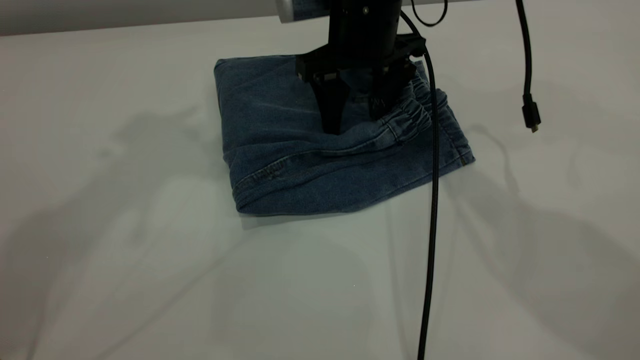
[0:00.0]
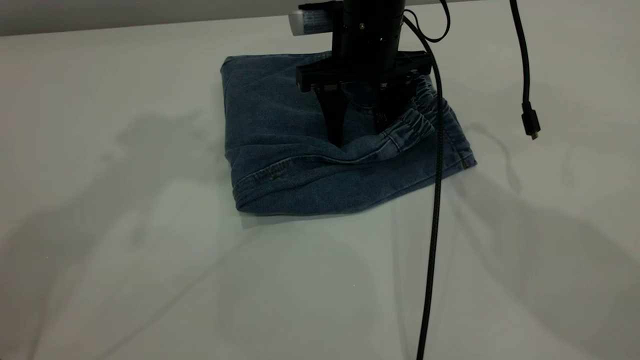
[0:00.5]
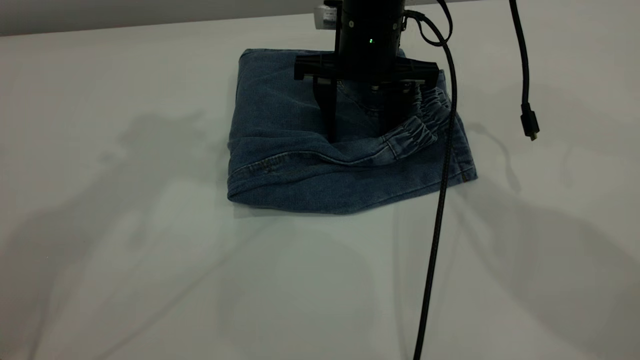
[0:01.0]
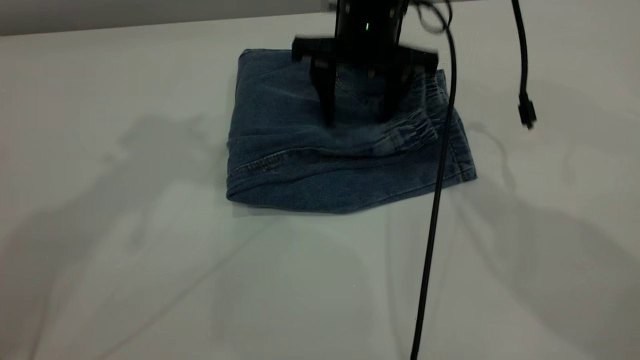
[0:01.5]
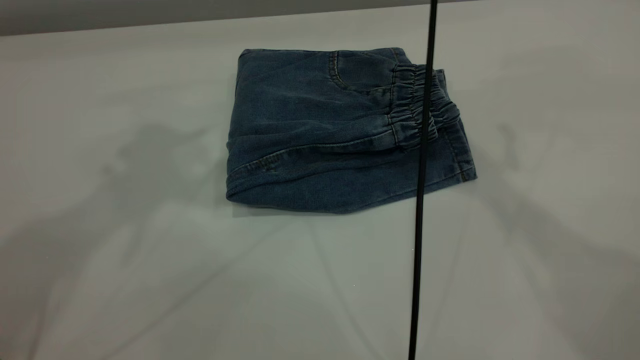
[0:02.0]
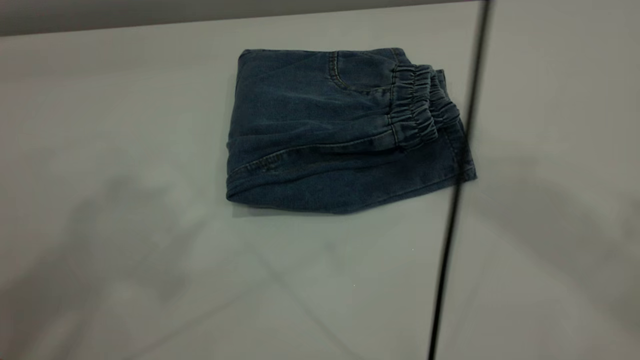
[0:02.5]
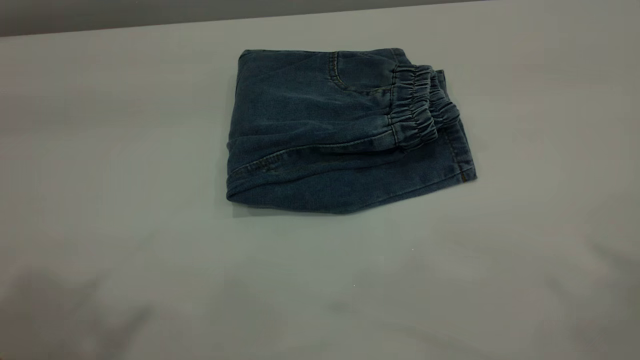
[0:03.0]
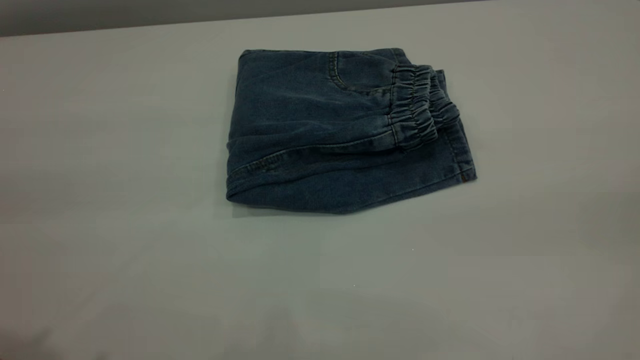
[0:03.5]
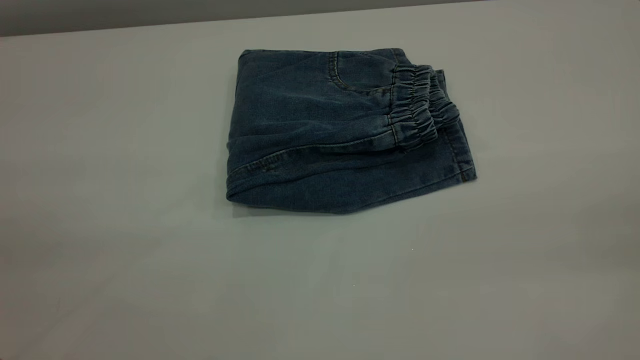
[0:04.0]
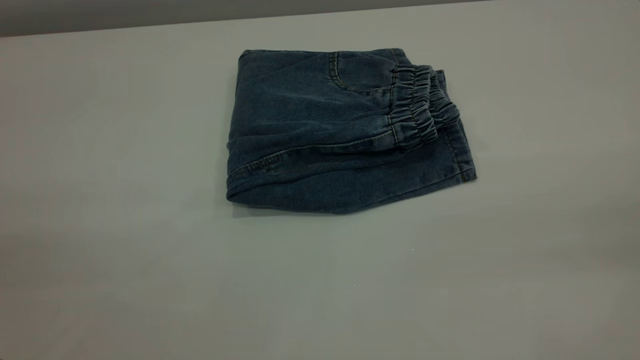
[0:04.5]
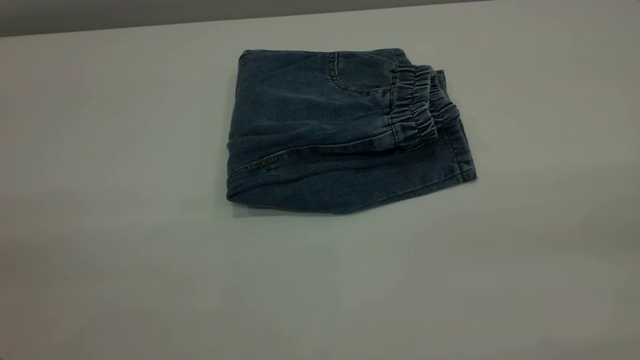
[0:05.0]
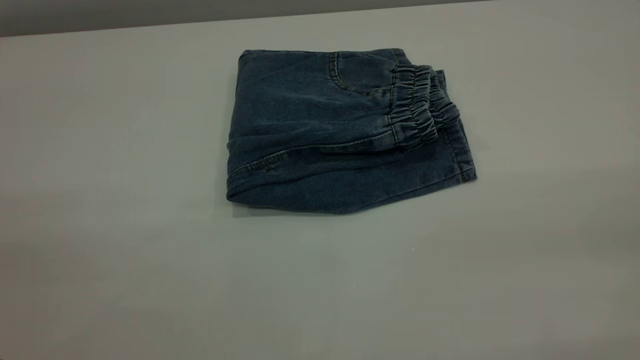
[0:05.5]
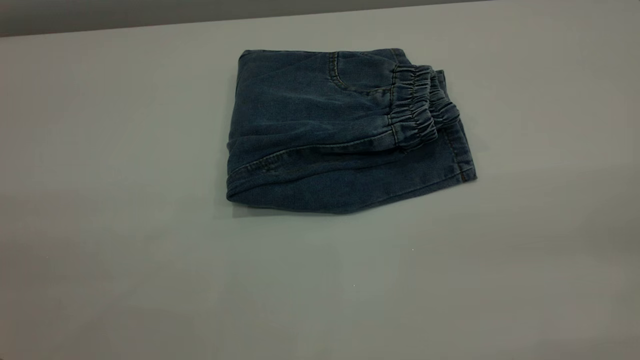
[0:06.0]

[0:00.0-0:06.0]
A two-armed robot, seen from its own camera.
0:00.0 to 0:02.0: The right gripper travels upward by approximately 20 cm.
0:02.0 to 0:04.0: The left gripper shifts roughly 25 cm backward. The right gripper heads backward and to the right, covering some 50 cm.

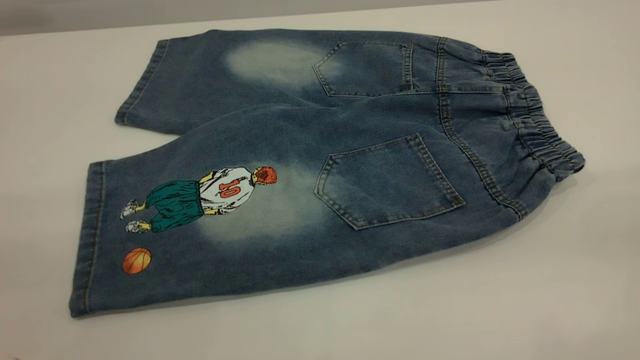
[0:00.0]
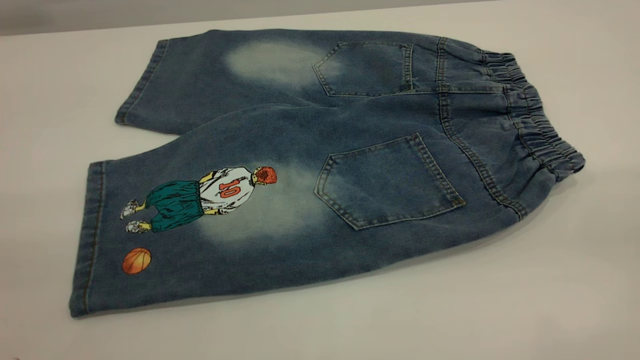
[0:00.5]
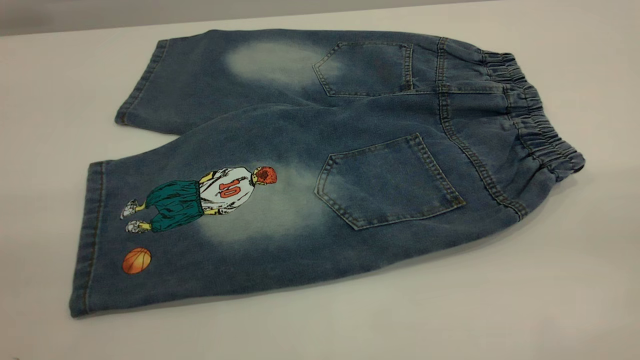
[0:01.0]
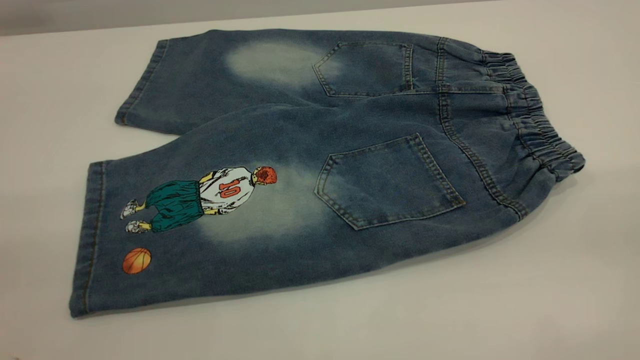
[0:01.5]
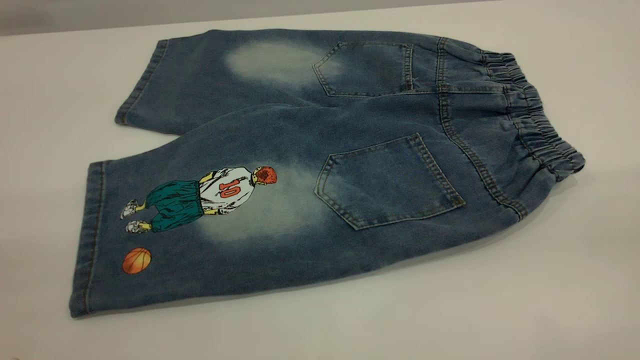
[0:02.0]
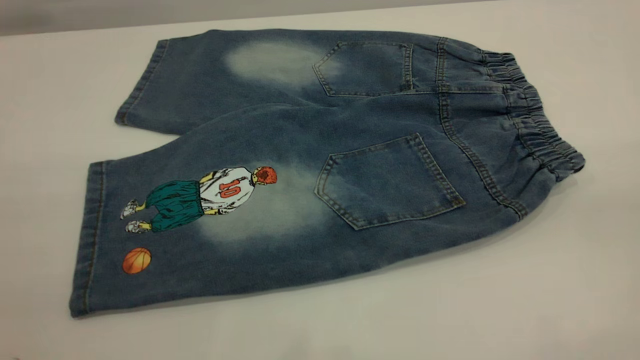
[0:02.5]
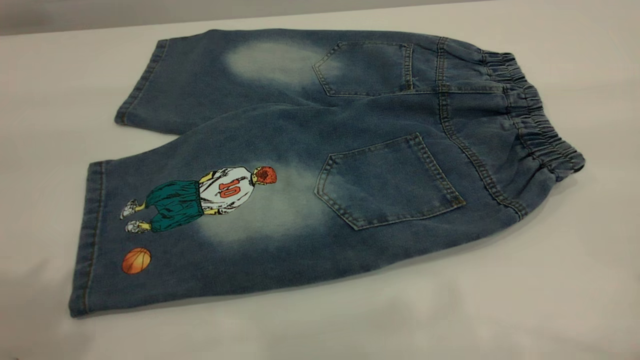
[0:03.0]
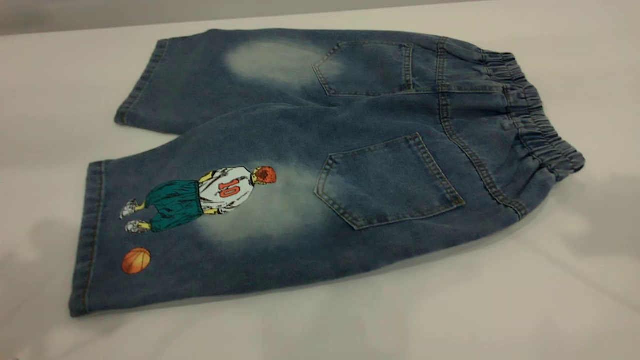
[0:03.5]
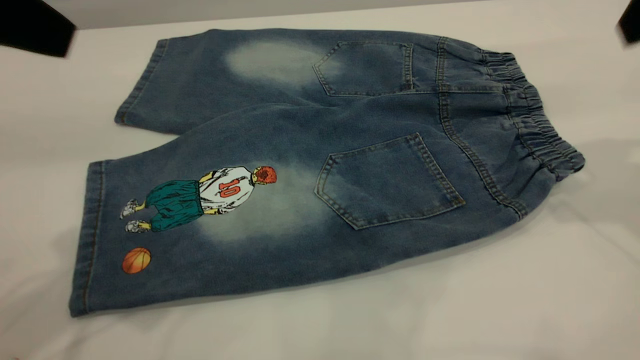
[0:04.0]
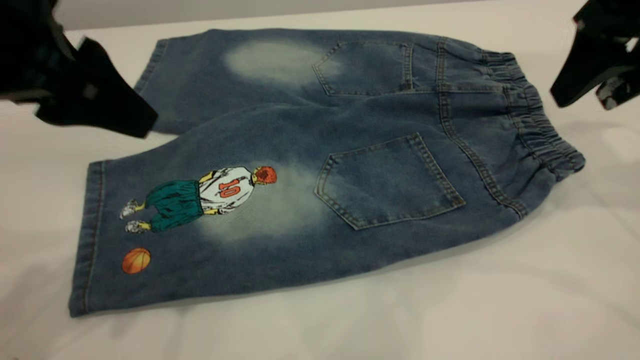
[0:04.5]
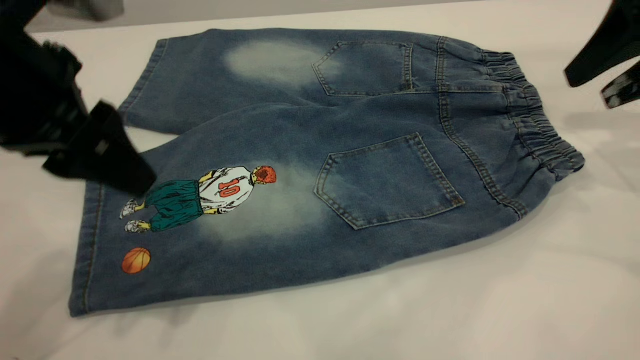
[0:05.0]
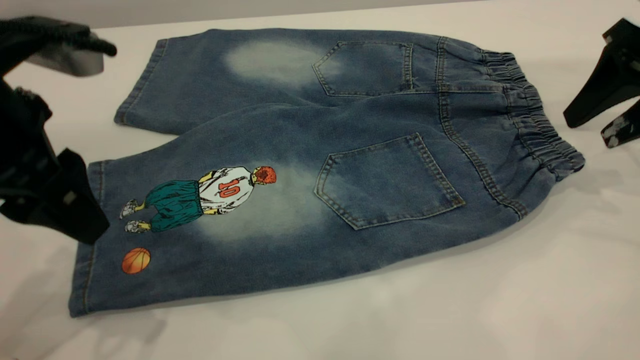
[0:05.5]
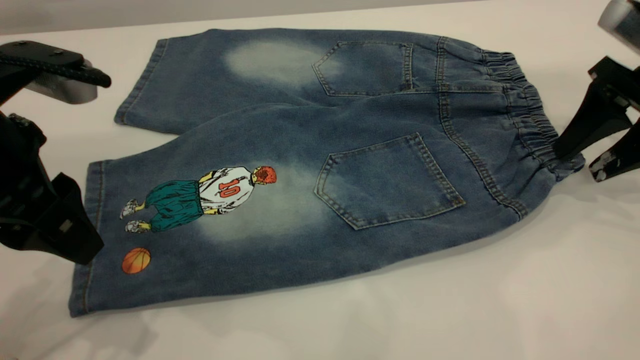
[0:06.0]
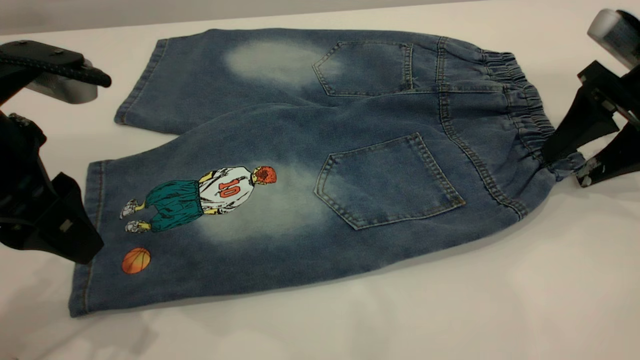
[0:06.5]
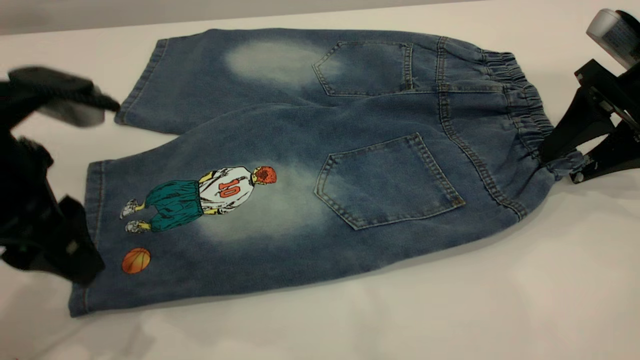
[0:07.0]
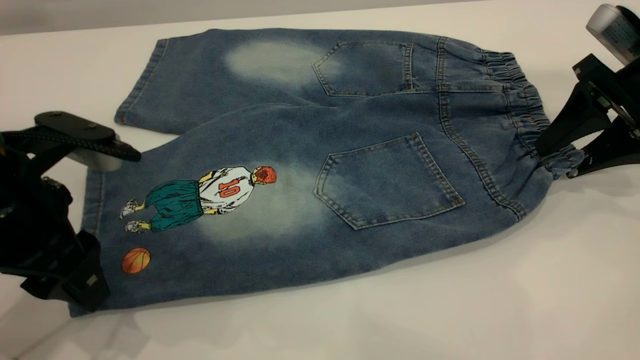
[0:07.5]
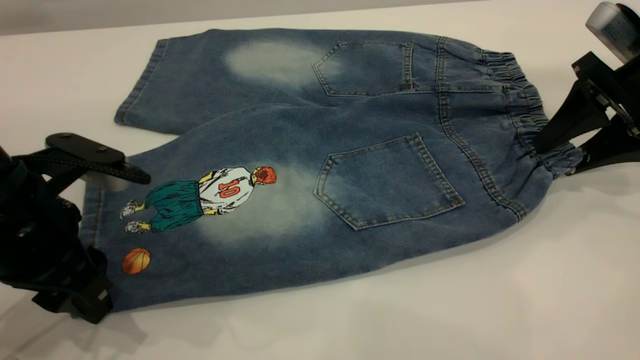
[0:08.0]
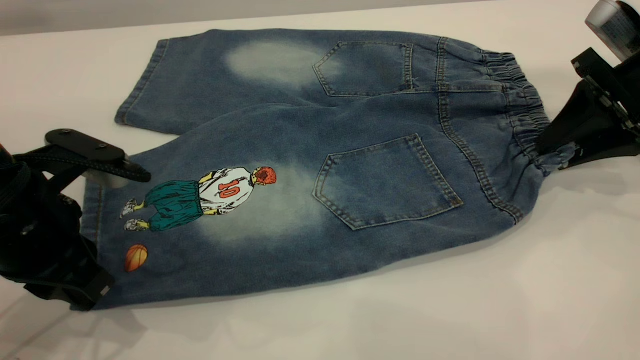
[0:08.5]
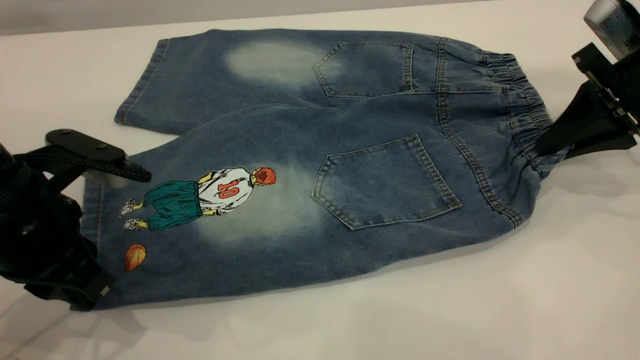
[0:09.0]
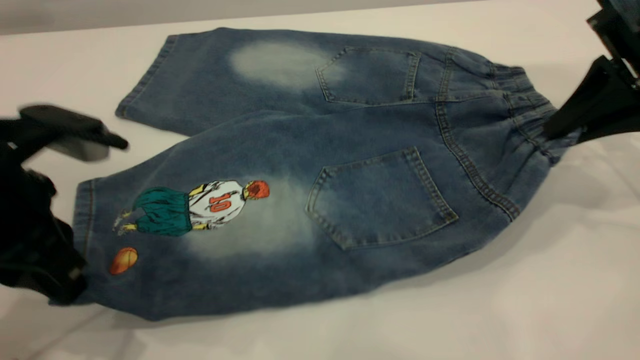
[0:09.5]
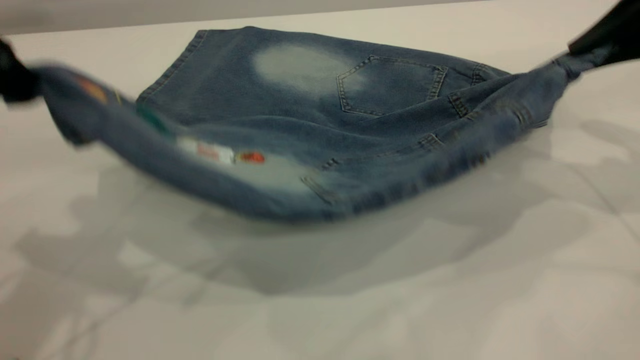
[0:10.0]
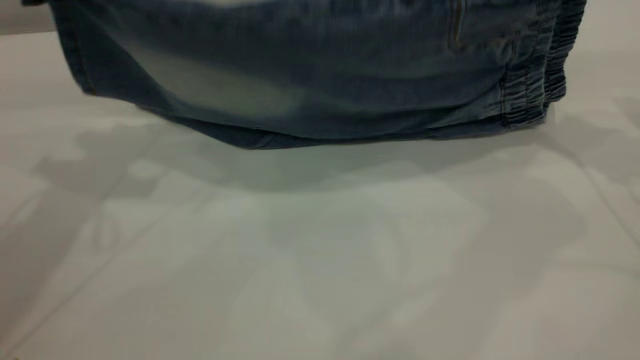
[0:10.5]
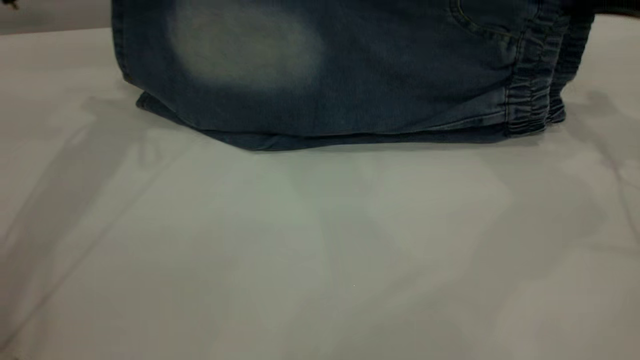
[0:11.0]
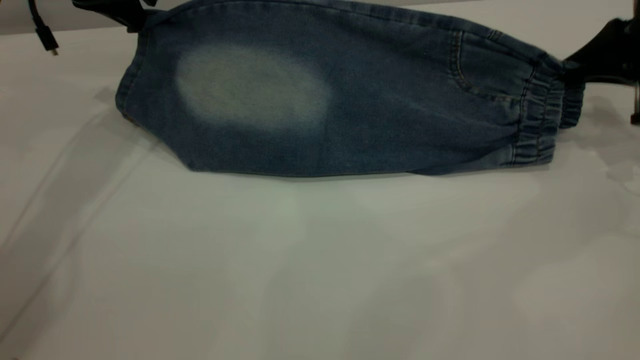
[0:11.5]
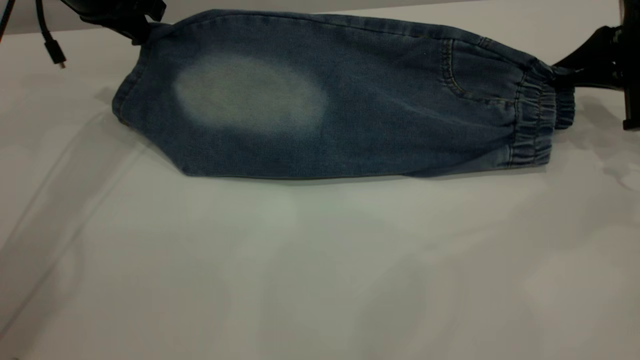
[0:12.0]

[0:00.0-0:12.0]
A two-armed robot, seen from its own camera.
0:00.0 to 0:02.0: Neither gripper changes place.
0:02.0 to 0:04.0: The left gripper is displaced forward by approximately 20 cm.
0:04.0 to 0:06.0: The left gripper travels downward by about 10 cm, while the right gripper shifts approximately 15 cm downward and to the right.
0:06.0 to 0:08.0: The left gripper goes some 10 cm downward.
0:08.0 to 0:10.0: The left gripper is displaced upward by roughly 15 cm, and closes; the right gripper goes roughly 10 cm upward, and closes up.
0:10.0 to 0:12.0: The left gripper shifts roughly 25 cm forward and downward. The right gripper goes about 10 cm downward and forward.

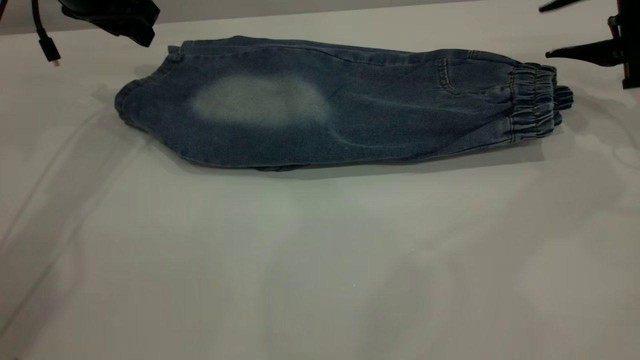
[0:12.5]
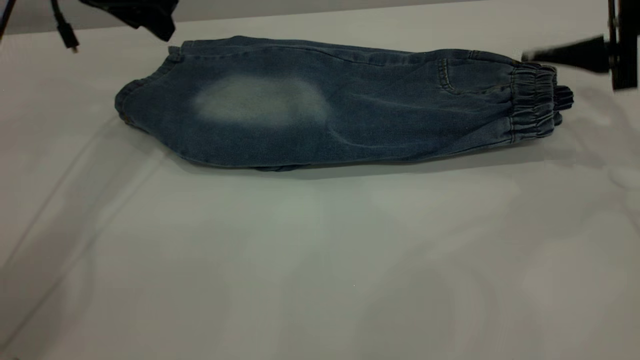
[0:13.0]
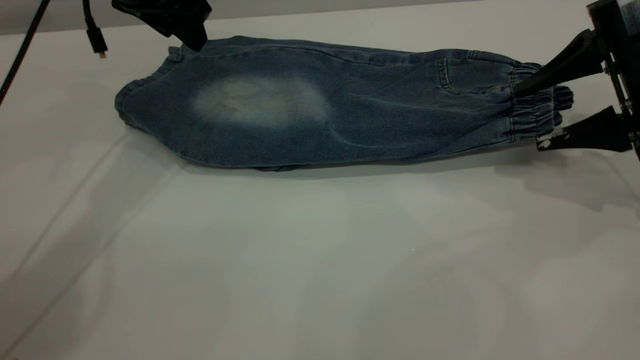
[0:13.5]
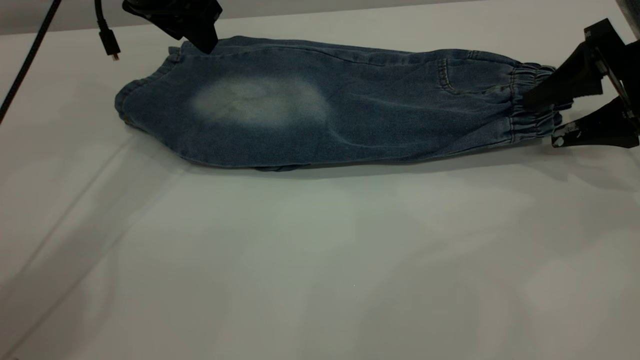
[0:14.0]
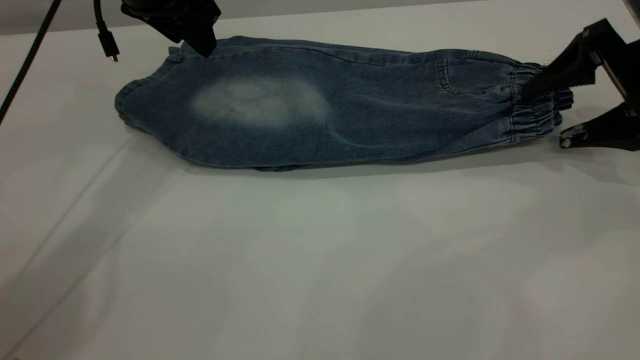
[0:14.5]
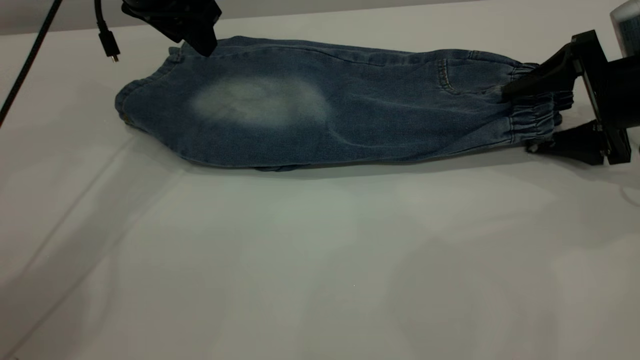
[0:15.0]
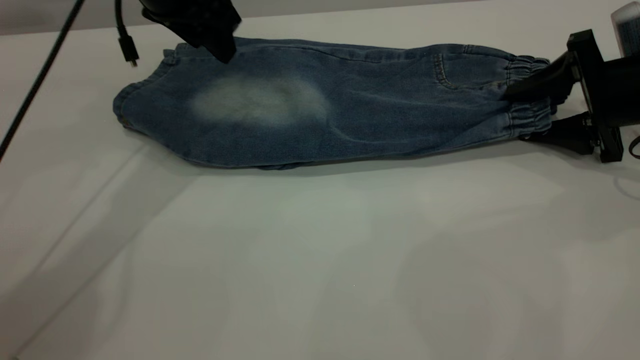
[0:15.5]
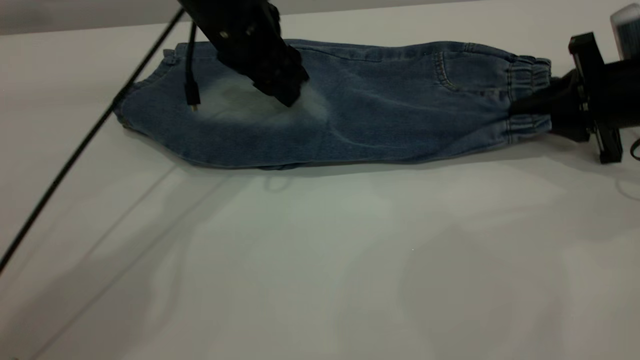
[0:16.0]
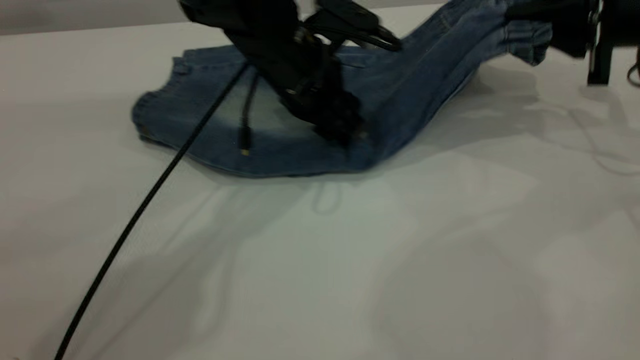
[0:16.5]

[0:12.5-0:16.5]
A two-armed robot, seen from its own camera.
0:12.5 to 0:14.5: The left gripper is displaced to the right by approximately 10 cm, while the right gripper shifts by about 5 cm, and opens up.
0:14.5 to 0:16.5: The left gripper moves to the right and downward, roughly 20 cm. The right gripper changes place by some 5 cm, and closes its fingers.
